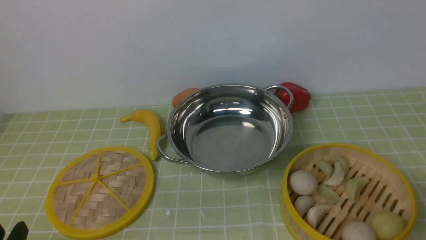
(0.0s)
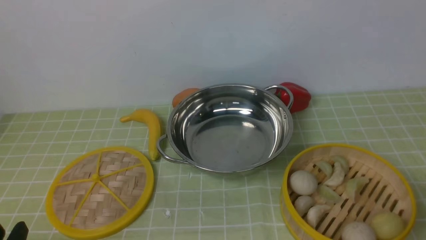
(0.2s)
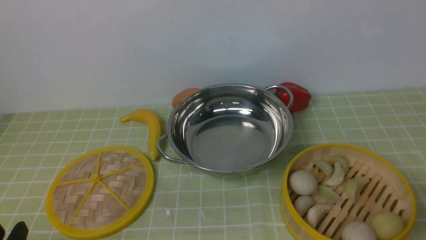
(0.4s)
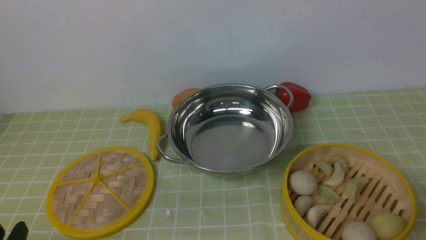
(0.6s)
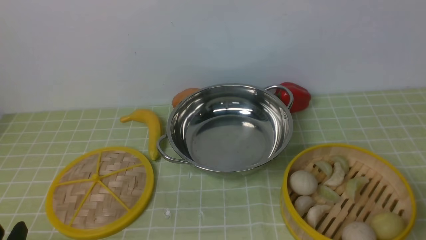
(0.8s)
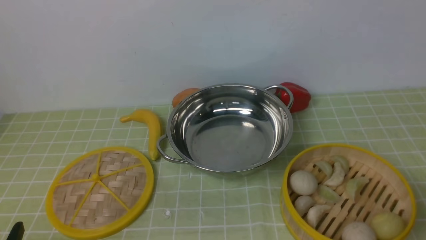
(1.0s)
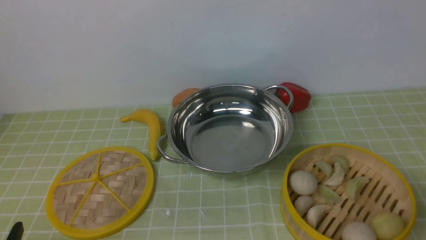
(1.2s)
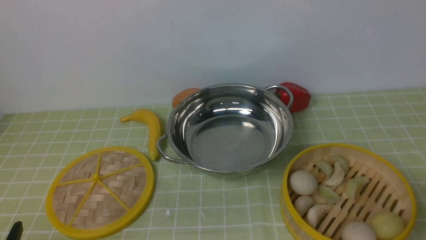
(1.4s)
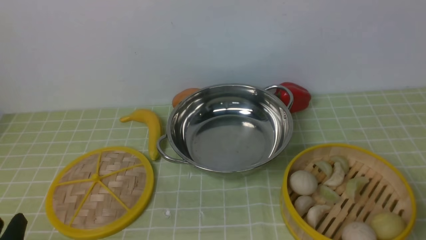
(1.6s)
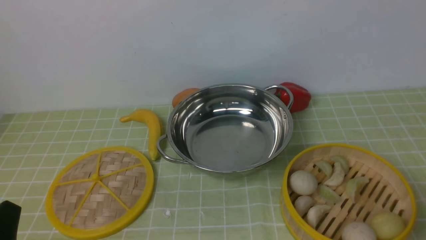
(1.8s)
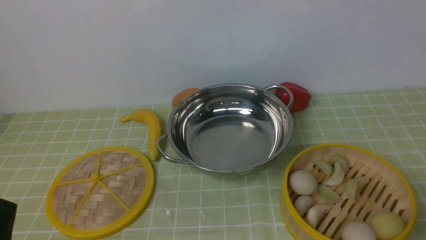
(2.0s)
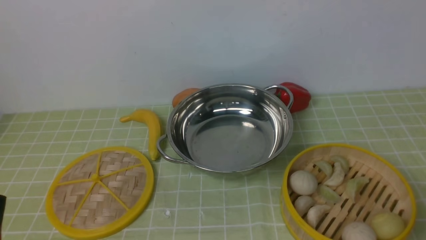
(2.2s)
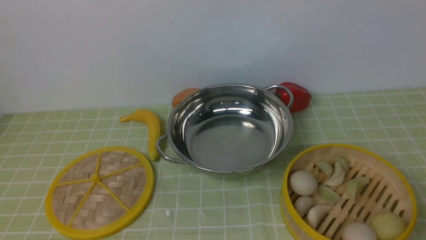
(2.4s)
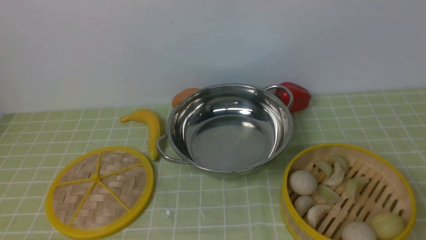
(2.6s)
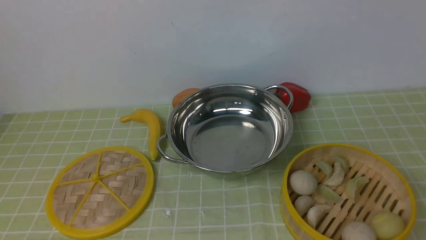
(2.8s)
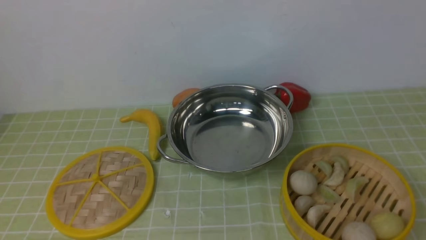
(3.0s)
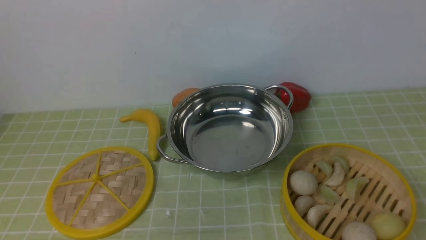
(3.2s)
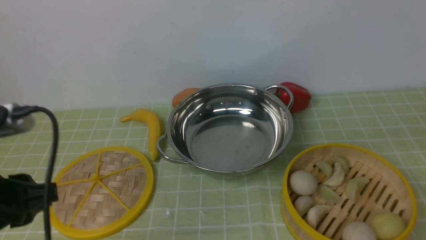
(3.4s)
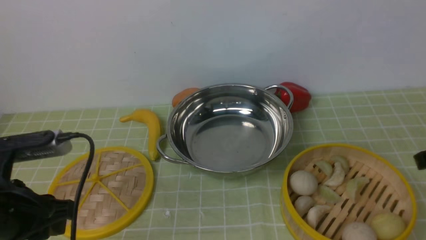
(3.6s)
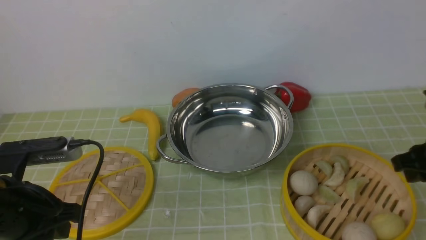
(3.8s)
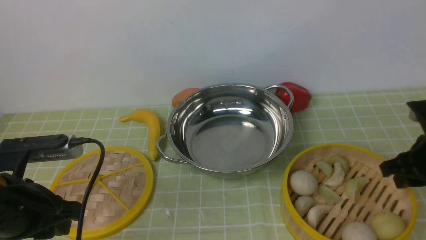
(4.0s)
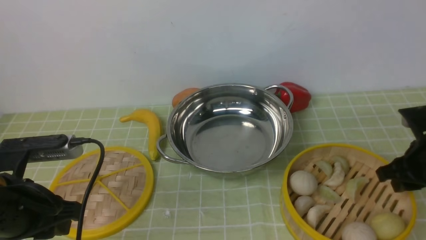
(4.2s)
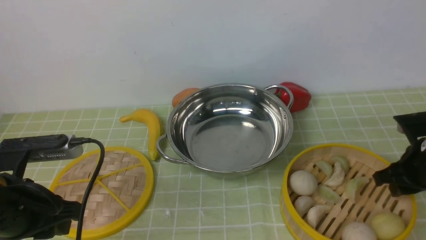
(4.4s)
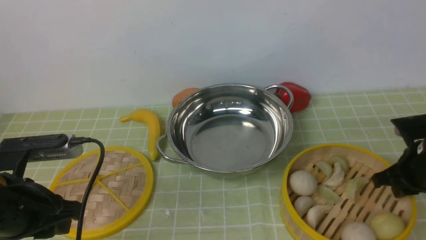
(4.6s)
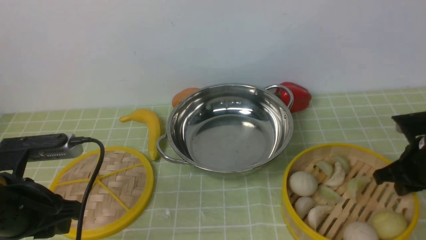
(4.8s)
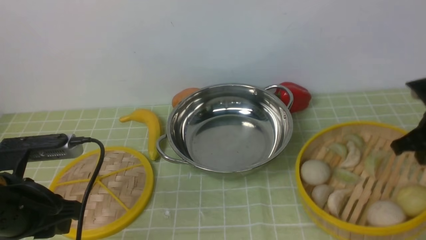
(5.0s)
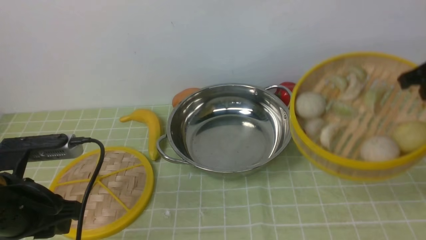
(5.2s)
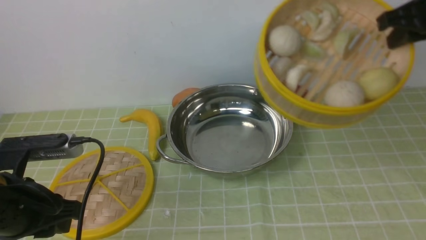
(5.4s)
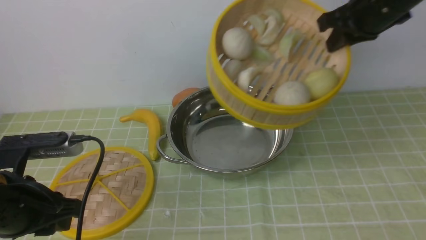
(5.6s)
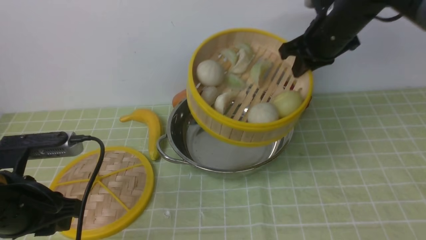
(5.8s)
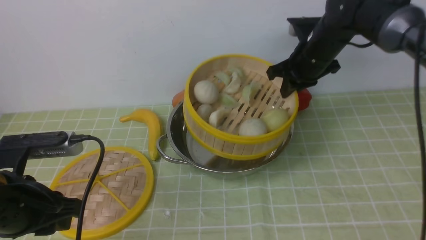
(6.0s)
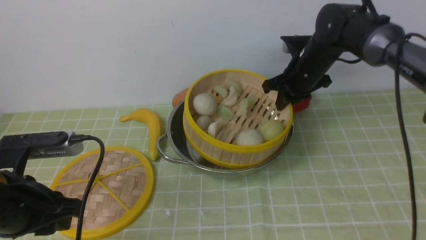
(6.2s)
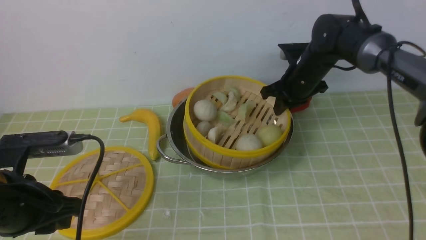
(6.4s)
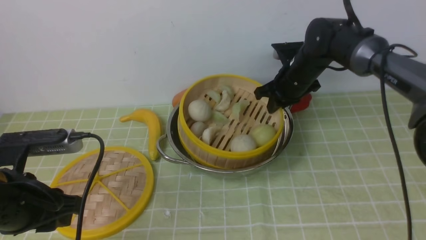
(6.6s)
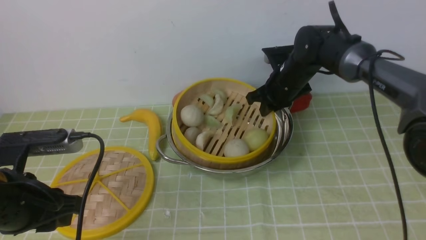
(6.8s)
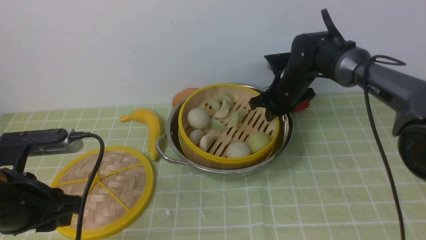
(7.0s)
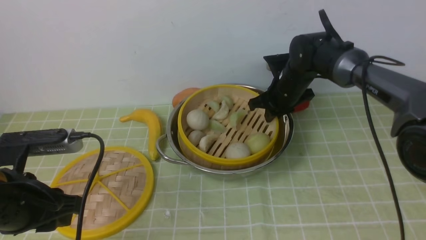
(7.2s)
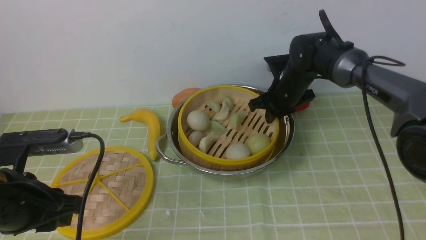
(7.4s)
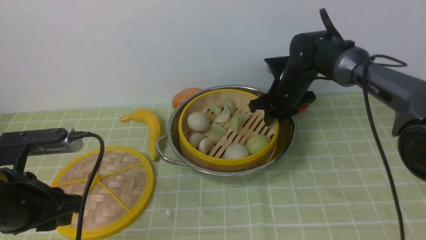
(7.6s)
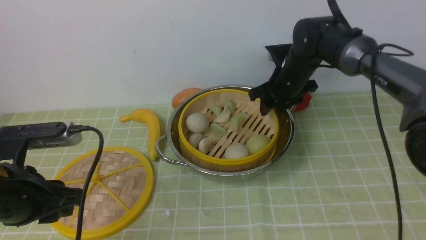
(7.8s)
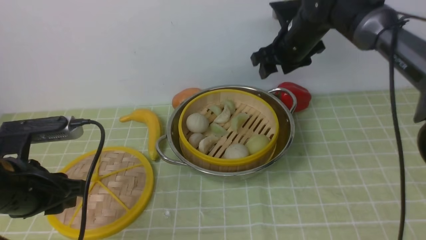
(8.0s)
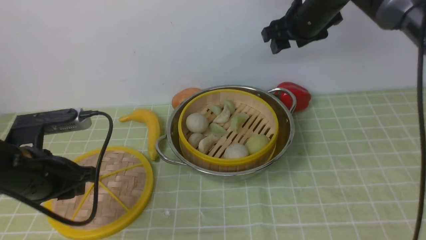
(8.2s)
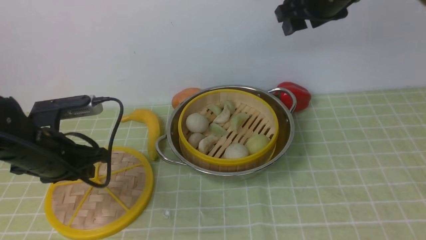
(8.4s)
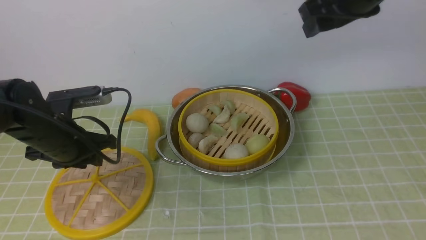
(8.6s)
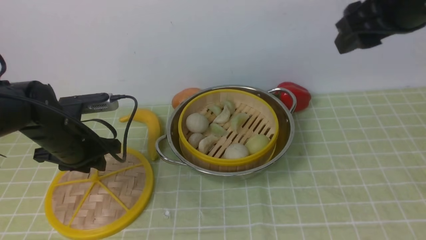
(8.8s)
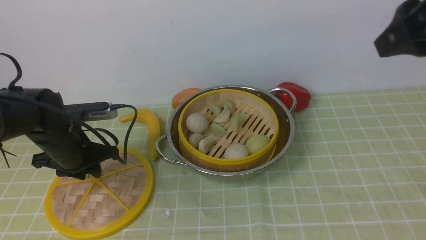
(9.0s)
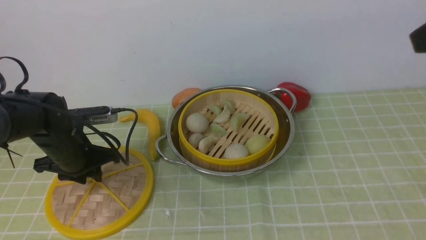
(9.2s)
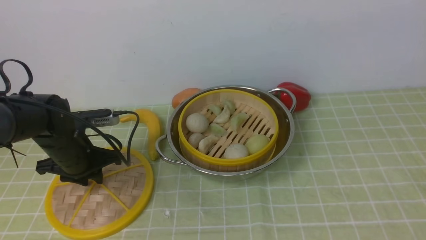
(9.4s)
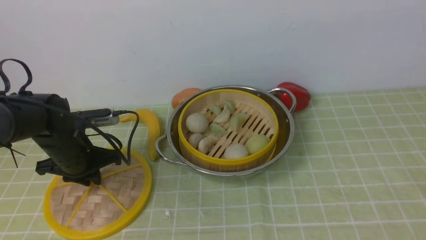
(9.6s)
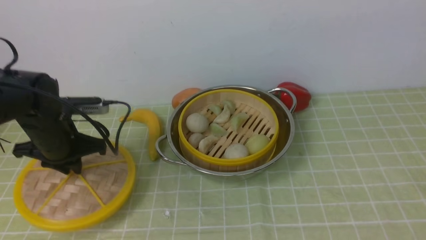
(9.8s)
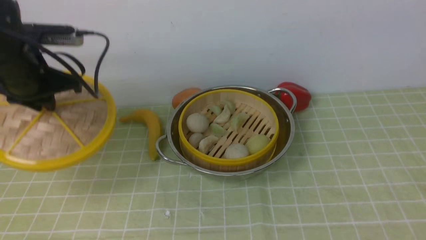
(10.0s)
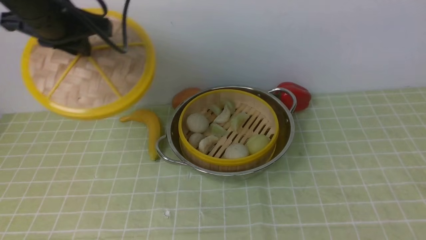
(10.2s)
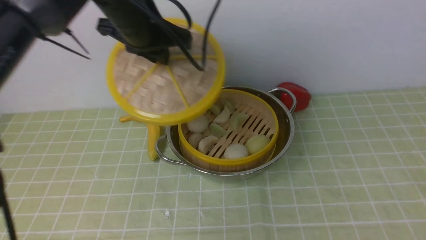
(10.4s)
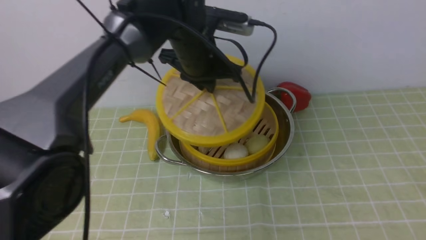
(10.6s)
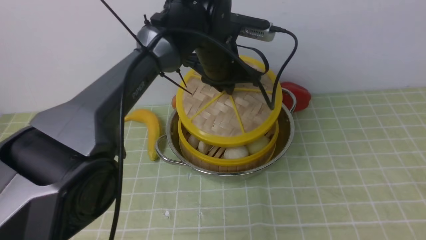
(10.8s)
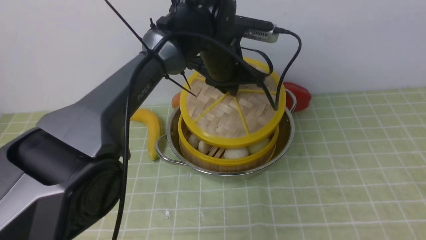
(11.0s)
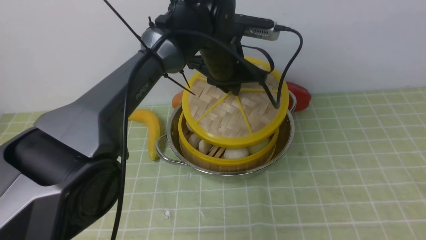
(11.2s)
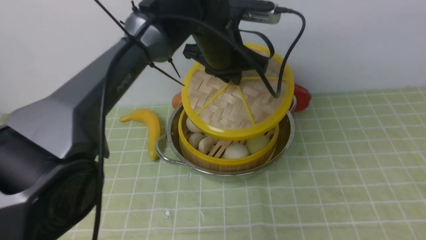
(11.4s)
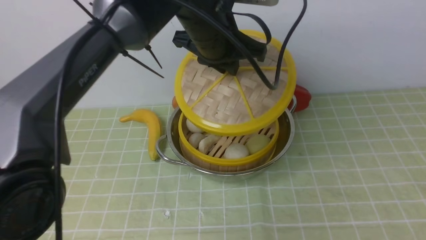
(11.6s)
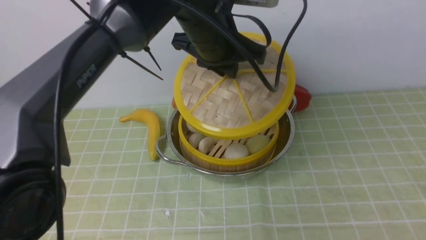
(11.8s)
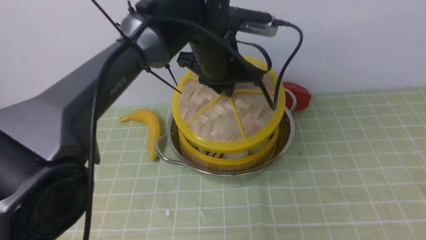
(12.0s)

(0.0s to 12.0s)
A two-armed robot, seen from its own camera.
Task of the whole recording: place the steamer in the pot on the green tablecloth, and put the lid on the steamer.
Step, 0.0s - 5.4s: use the right arm to lift the steamer closest to it.
Step, 5.6s - 8.0s: use the right arm to put the steamer into the iron steamer pot in the middle.
Step, 8.2s - 10.2s: use the left arm to lift the lid of the steamer.
1.6s - 3.0s: The left gripper goes roughly 20 cm upward.
3.0s - 4.4s: The left gripper heads downward and forward, covering roughly 20 cm. The right gripper heads downward and forward, covering approximately 35 cm.
4.4s - 6.0s: The right gripper is displaced forward, to the left and upward by approximately 25 cm.
6.0s - 7.6s: The right gripper is displaced downward by roughly 5 cm, and opens its fingers.
7.6s - 9.0s: The right gripper heads upward, backward and to the right, covering some 35 cm. Meanwhile the left gripper shifts about 15 cm forward and downward.
9.0s - 10.4s: The left gripper goes roughly 25 cm upward, to the right and forward; the right gripper travels backward by approximately 5 cm.
10.4s - 12.0s: The left gripper heads to the right, covering about 10 cm.

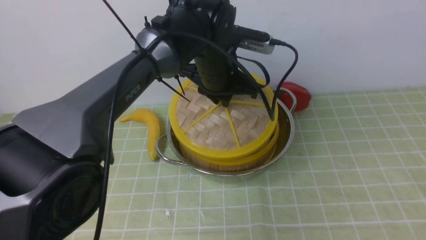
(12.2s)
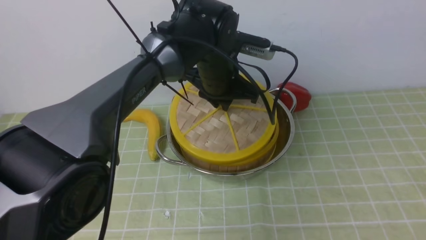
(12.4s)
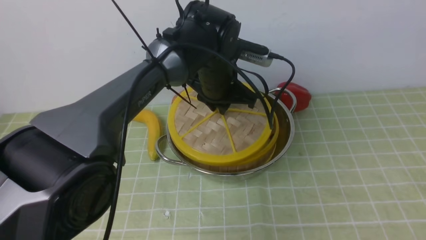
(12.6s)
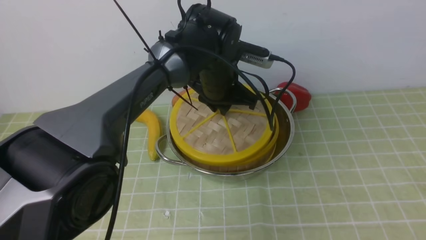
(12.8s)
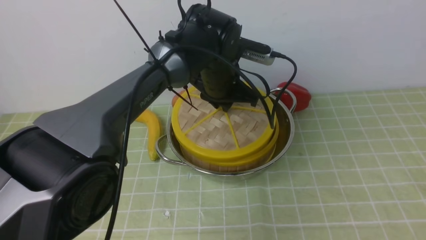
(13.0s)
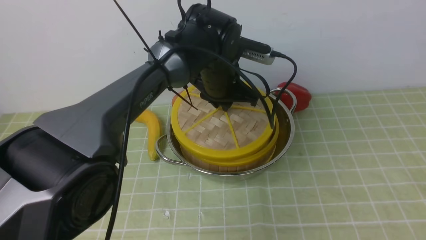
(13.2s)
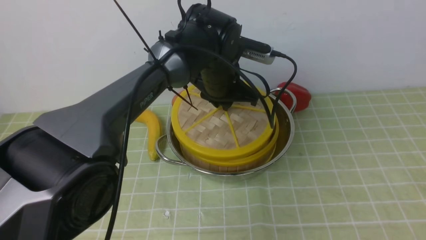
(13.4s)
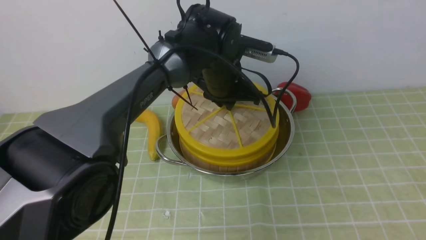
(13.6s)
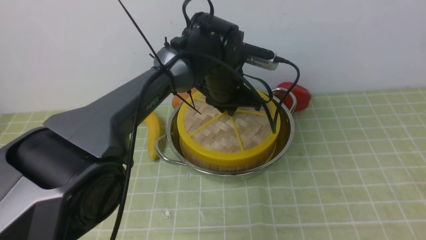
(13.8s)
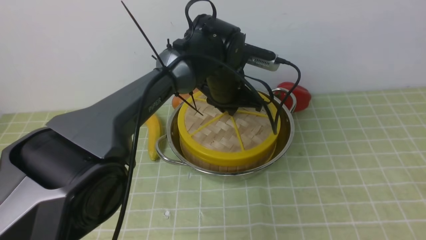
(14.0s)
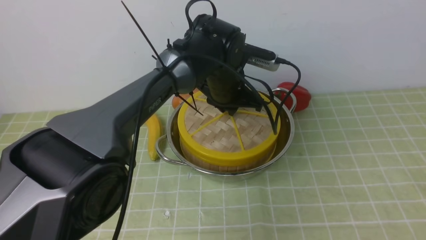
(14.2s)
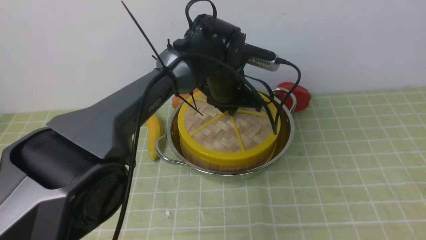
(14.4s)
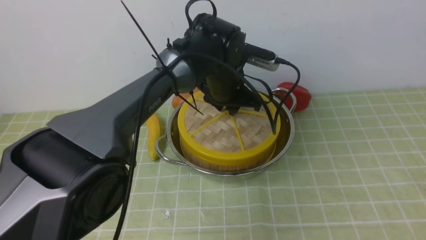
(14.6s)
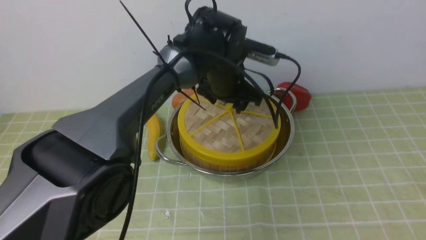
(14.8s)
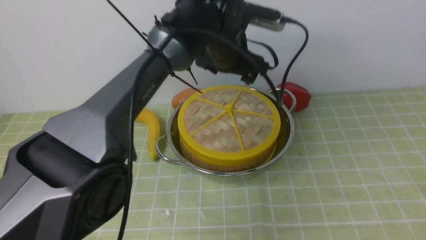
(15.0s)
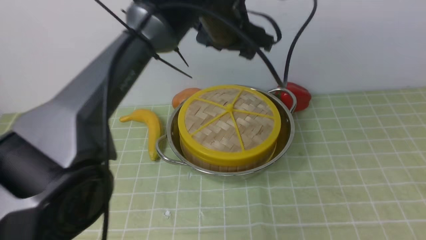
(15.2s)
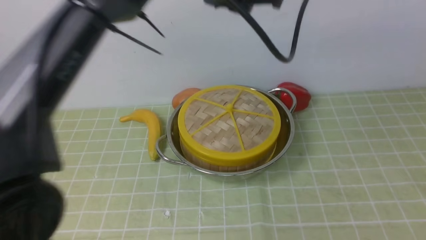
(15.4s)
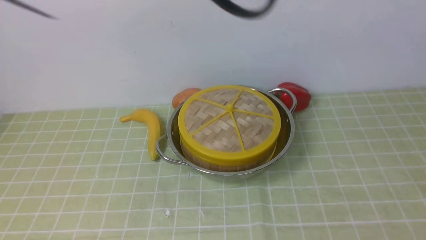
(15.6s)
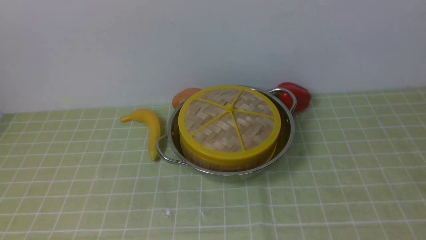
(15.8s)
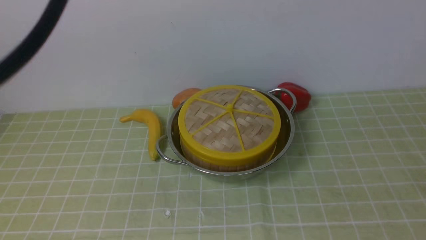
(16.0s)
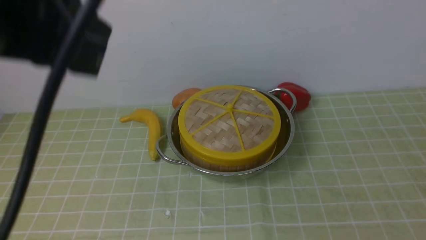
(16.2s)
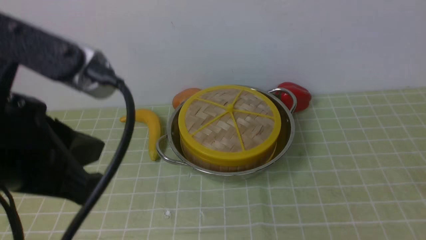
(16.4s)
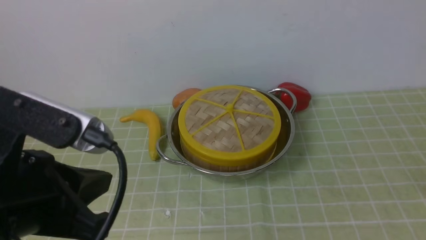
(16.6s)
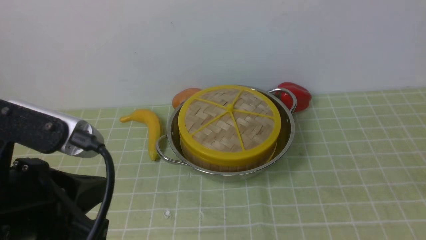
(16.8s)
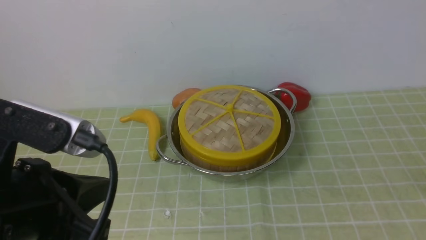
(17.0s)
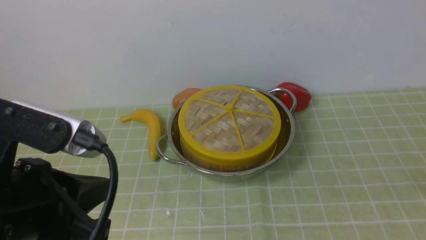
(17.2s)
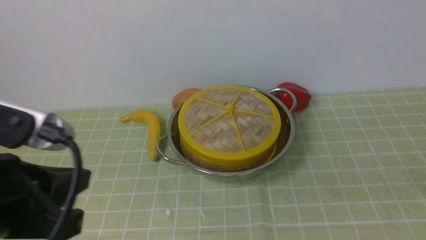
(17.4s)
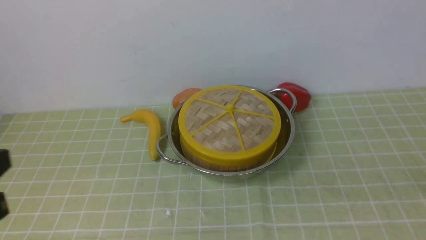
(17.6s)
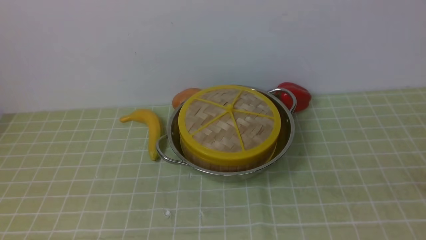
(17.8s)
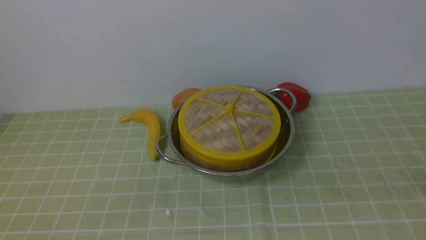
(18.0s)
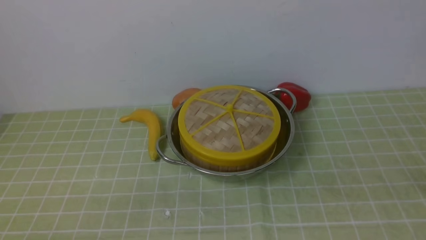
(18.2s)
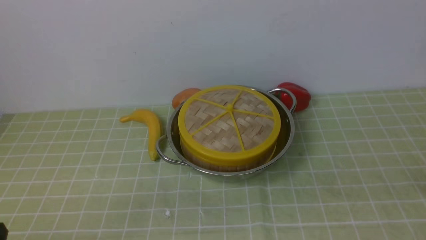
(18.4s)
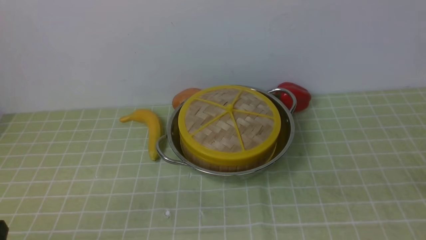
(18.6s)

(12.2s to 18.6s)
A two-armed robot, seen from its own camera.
Task of the whole recording: place the steamer in the pot on the green tablecloth, and put the lid on the steamer.
Step, 12.2s - 15.0s: use the left arm to place the steamer lid on the steamer.
13.8s - 15.4s: The left gripper goes some 20 cm upward, and opens, then closes again.
15.4s - 17.0s: The right gripper moves downward and backward, about 15 cm, and closes up, while the left gripper is displaced backward, to the left and downward by about 30 cm, and closes its fingers.
17.0s - 18.6s: The left gripper shifts roughly 20 cm downward, to the left and backward.
